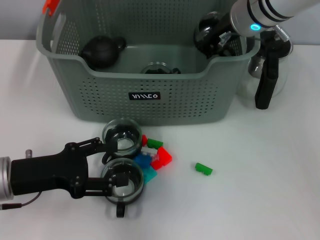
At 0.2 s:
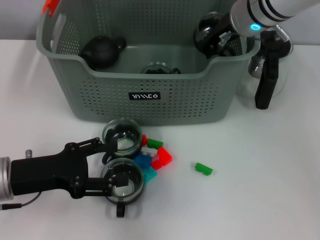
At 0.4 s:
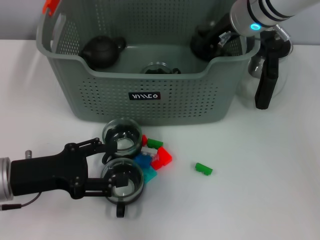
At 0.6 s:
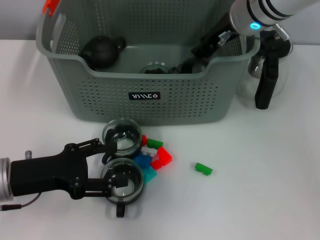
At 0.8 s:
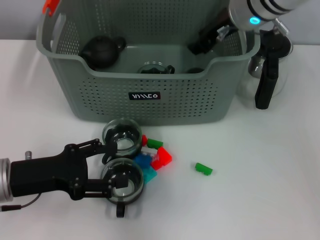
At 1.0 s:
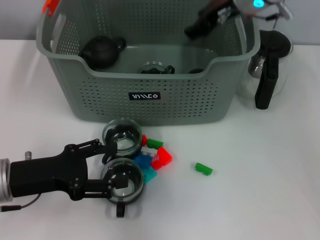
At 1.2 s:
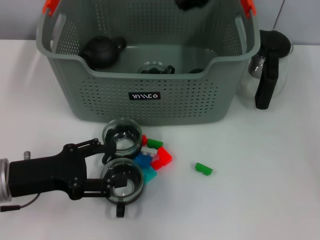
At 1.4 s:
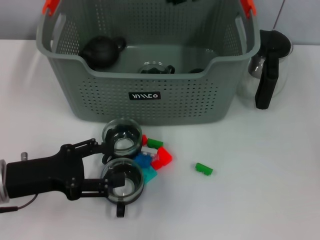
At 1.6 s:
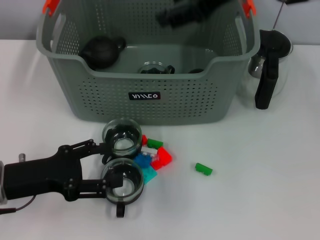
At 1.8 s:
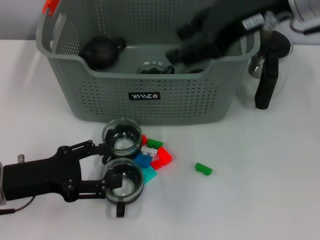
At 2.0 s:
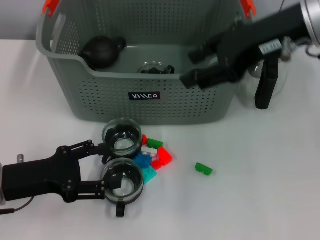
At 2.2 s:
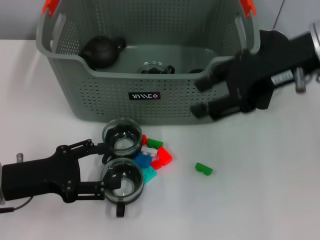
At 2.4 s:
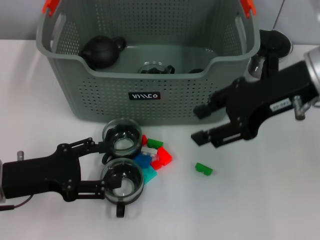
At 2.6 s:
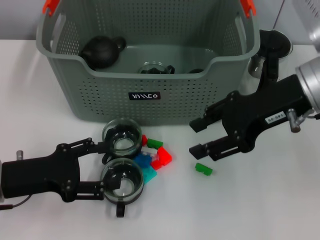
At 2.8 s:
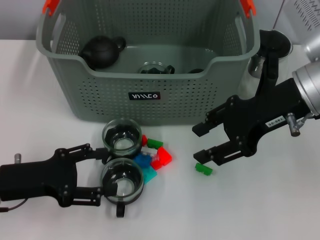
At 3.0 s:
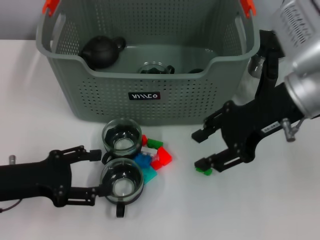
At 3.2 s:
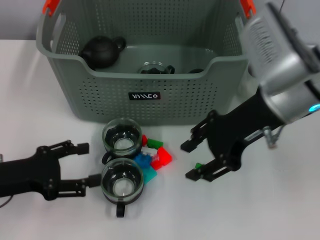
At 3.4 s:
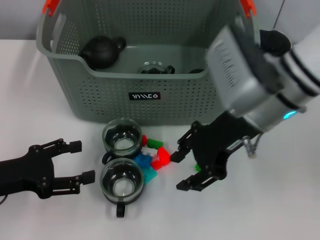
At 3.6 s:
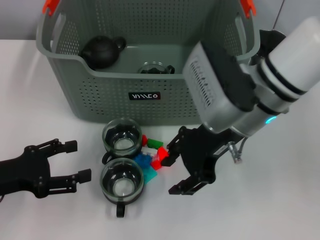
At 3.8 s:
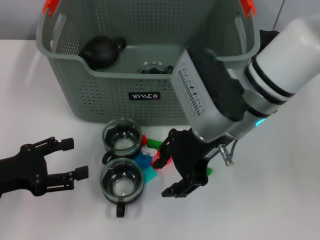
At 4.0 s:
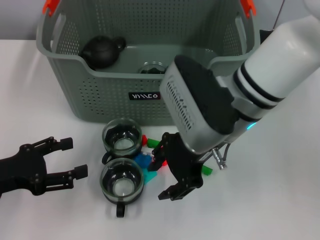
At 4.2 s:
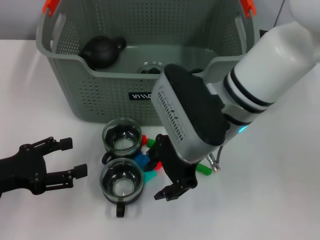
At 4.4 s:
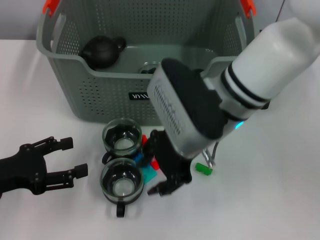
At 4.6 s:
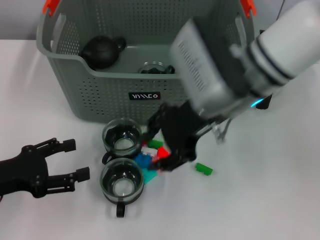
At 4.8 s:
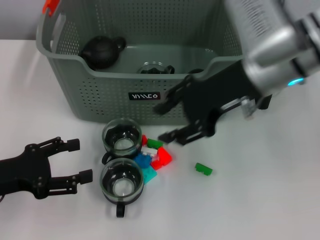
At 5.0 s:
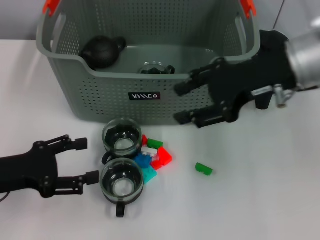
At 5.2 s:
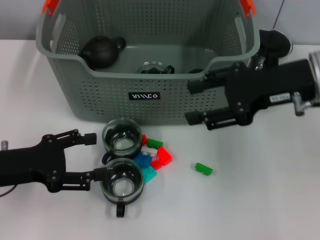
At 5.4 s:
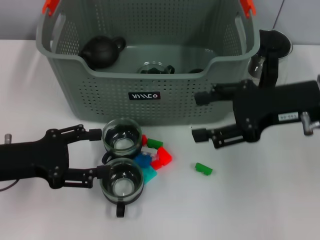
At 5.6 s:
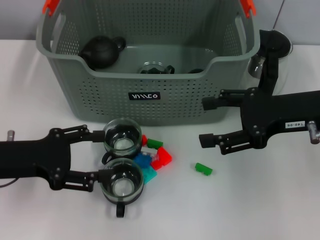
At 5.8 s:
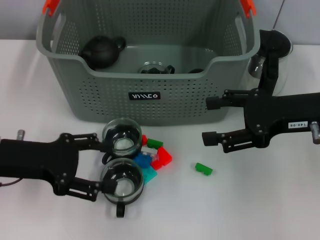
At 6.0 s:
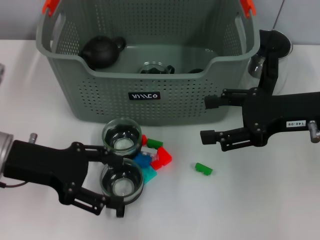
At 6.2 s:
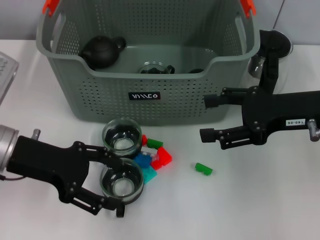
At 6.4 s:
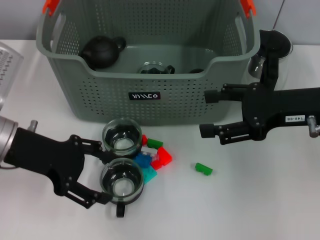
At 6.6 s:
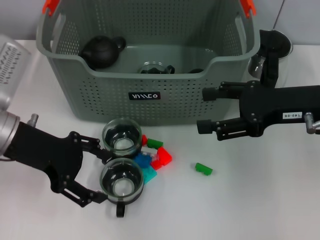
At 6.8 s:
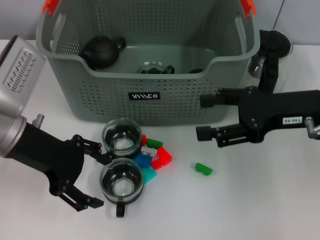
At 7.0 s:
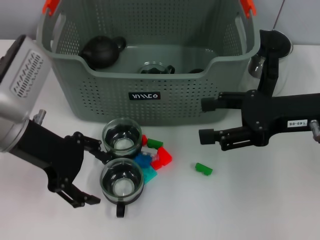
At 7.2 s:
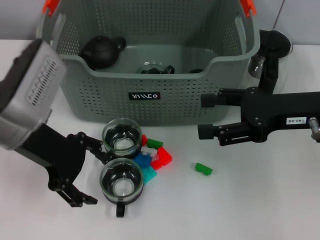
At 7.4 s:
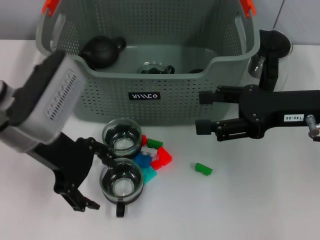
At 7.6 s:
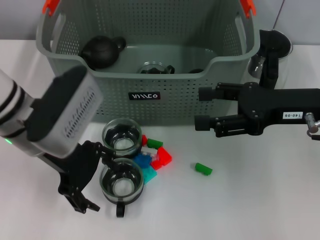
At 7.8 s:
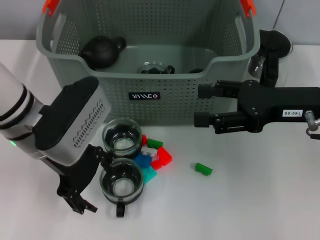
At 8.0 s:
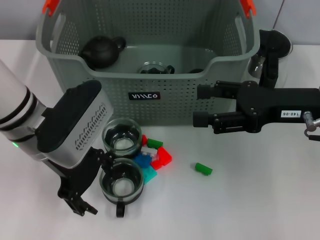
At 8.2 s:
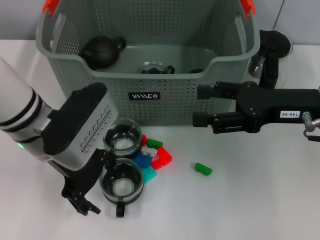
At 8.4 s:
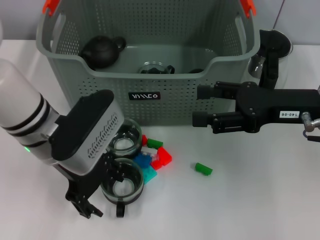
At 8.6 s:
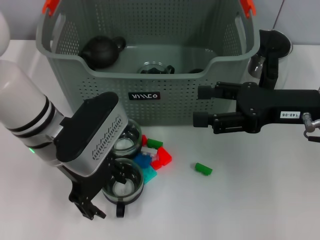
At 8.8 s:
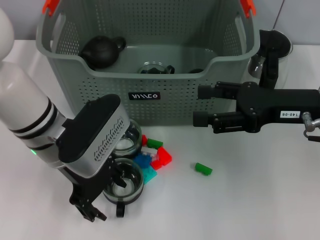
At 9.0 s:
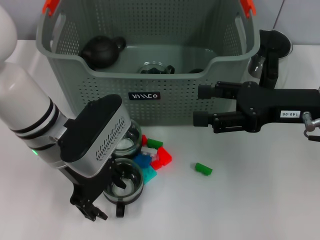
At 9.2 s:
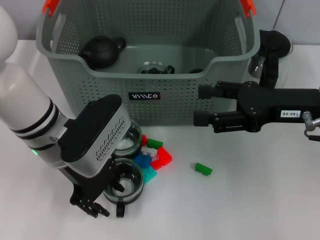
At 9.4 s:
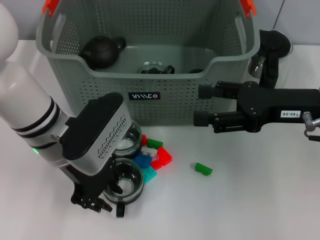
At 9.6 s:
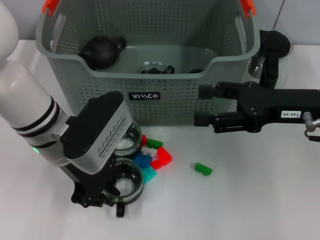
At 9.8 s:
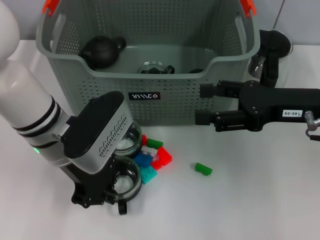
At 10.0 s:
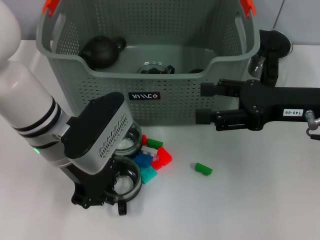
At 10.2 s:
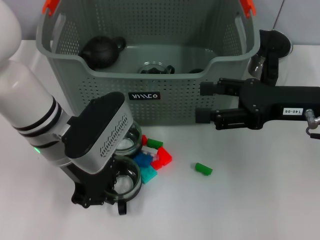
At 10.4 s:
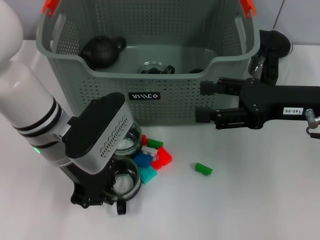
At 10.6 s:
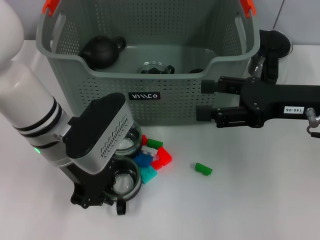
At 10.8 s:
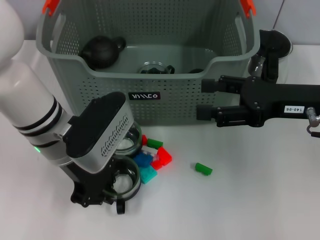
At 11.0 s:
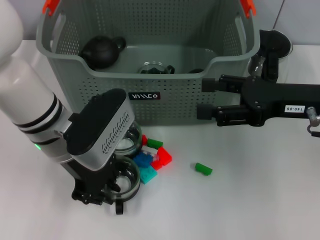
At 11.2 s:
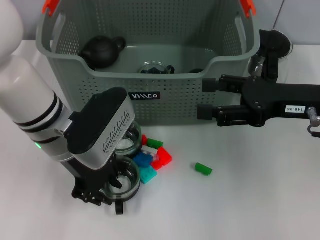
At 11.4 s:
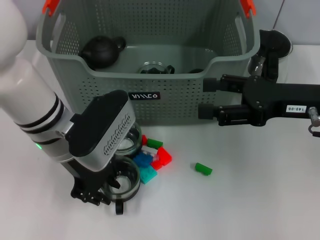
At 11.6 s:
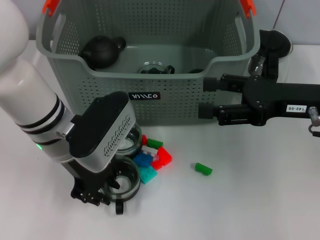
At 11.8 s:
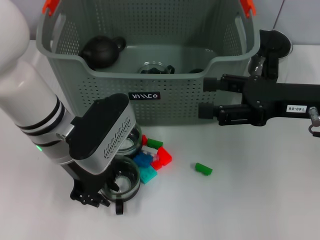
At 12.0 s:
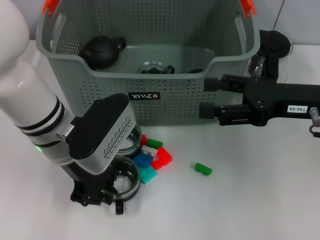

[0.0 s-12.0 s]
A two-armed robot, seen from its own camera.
Task of the whole recording: pick up the teacup on the table and place it into the storage bin, pick up the block on the table and place it into the storage bin.
0.0 to 1.6 s: The right gripper shifts about 15 cm upward and backward, and opens its fingers.
1.6 to 3.0 s: The right gripper heads downward, covering some 10 cm.
3.0 to 4.4 s: The right gripper goes roughly 10 cm to the left.
4.4 to 6.0 s: The left gripper shifts roughly 10 cm to the right, forward and upward. Meanwhile the right gripper is displaced to the right by some 20 cm, and opens its fingers.
6.0 to 7.6 s: The left gripper is displaced to the right by some 5 cm.
7.6 to 9.0 s: There are only small adjustments of the grippers.
9.0 to 10.4 s: The left gripper closes up.
10.4 to 12.0 s: Both grippers stay about where they are.

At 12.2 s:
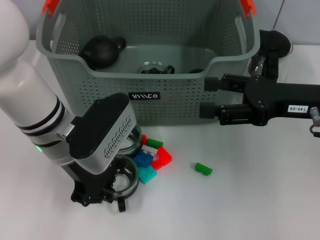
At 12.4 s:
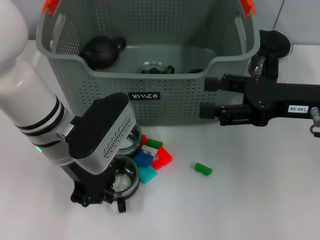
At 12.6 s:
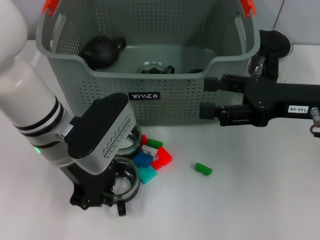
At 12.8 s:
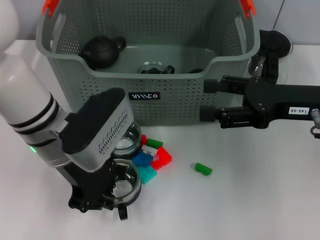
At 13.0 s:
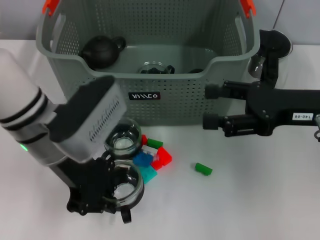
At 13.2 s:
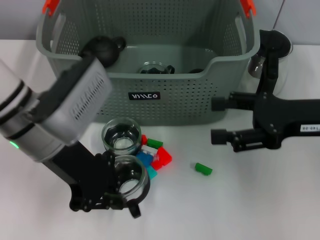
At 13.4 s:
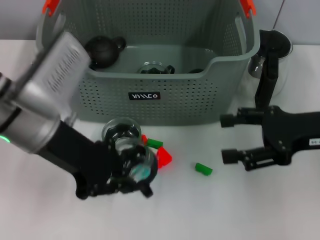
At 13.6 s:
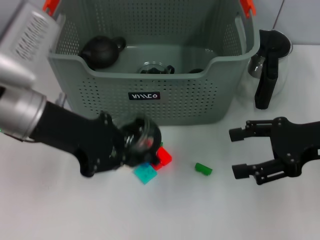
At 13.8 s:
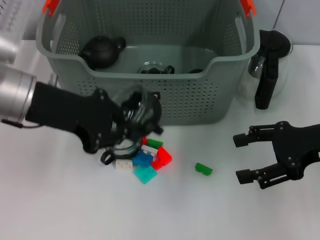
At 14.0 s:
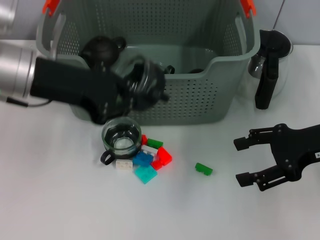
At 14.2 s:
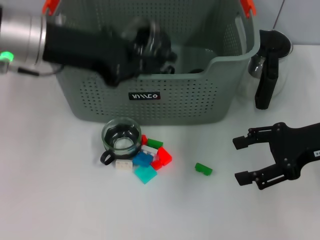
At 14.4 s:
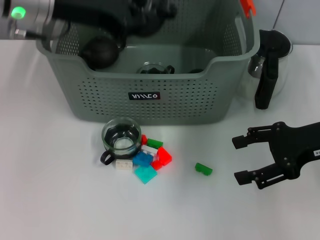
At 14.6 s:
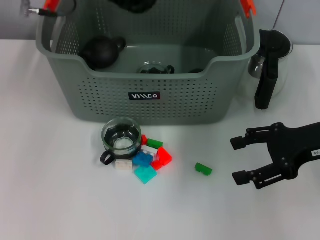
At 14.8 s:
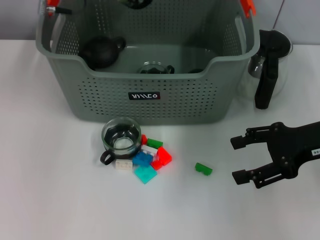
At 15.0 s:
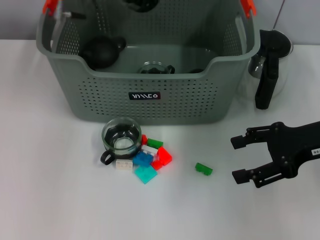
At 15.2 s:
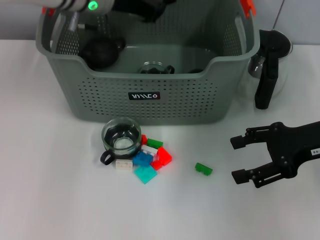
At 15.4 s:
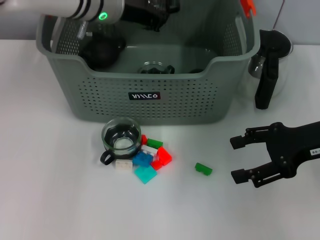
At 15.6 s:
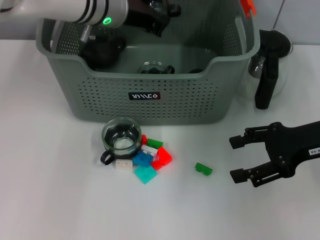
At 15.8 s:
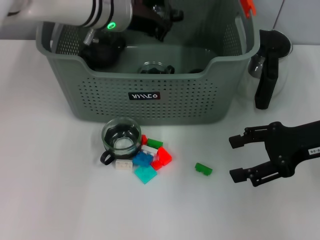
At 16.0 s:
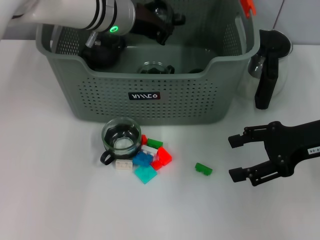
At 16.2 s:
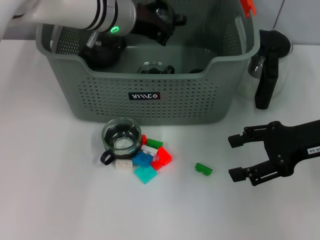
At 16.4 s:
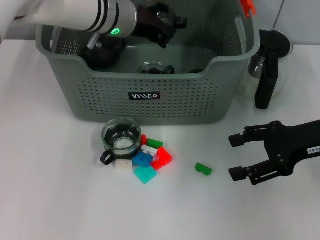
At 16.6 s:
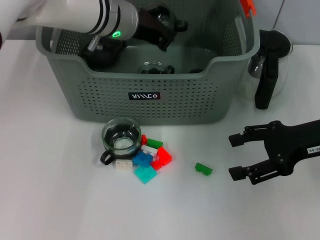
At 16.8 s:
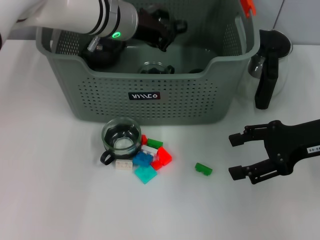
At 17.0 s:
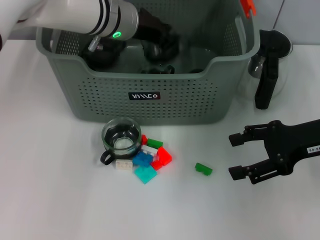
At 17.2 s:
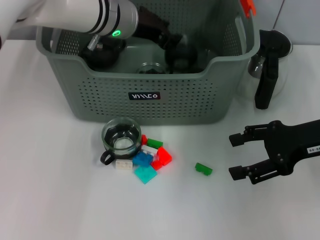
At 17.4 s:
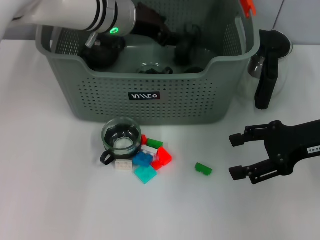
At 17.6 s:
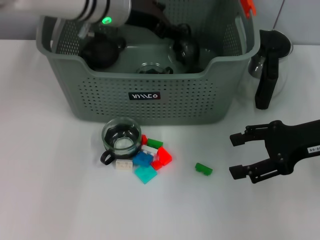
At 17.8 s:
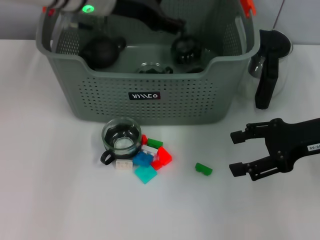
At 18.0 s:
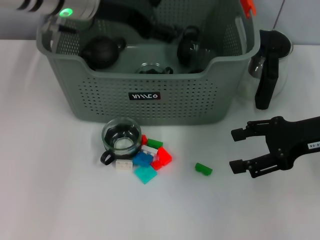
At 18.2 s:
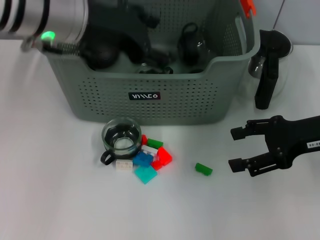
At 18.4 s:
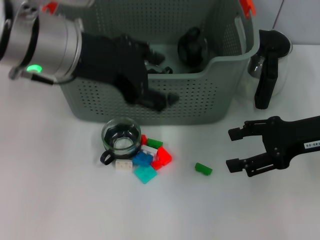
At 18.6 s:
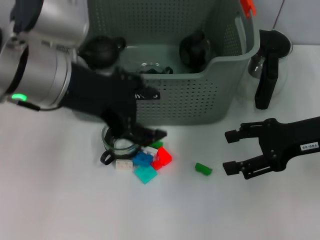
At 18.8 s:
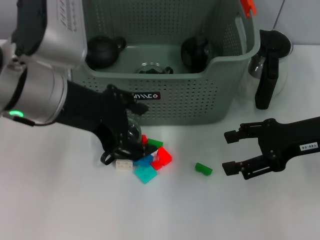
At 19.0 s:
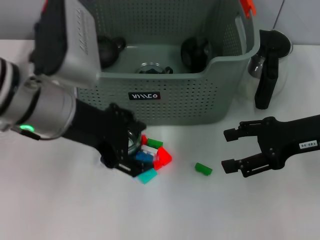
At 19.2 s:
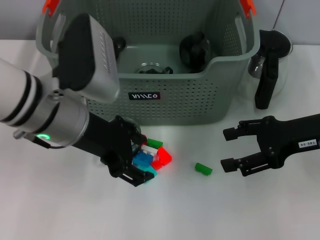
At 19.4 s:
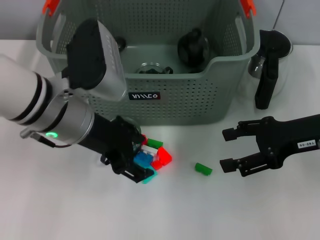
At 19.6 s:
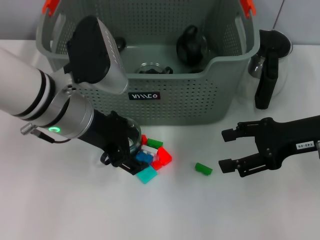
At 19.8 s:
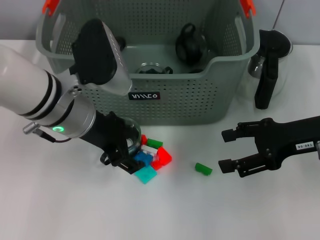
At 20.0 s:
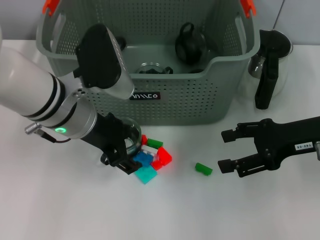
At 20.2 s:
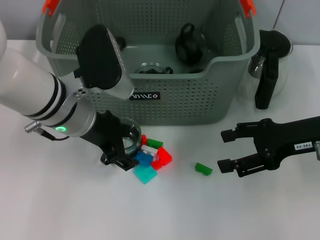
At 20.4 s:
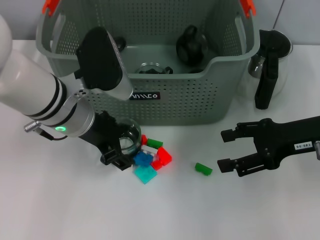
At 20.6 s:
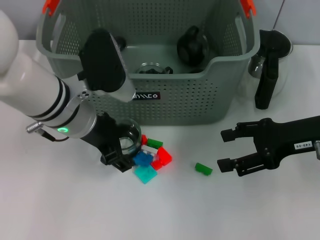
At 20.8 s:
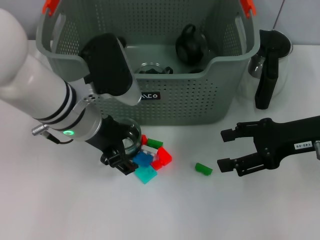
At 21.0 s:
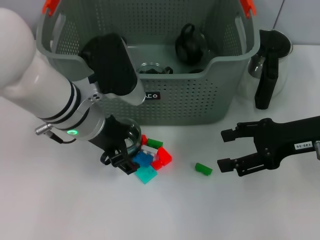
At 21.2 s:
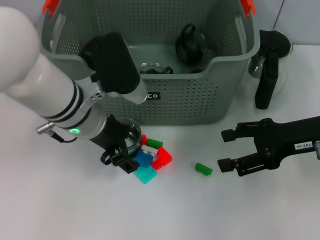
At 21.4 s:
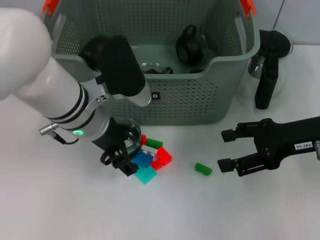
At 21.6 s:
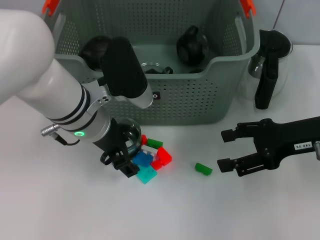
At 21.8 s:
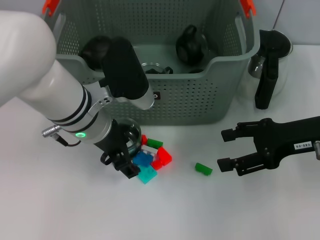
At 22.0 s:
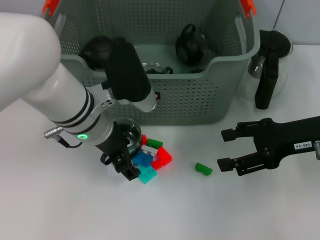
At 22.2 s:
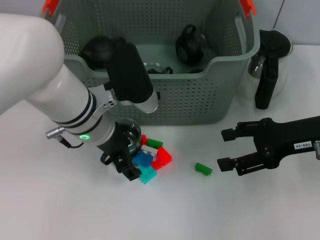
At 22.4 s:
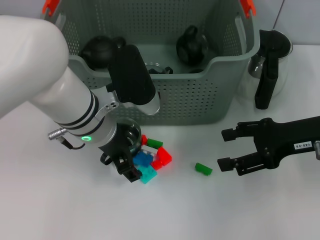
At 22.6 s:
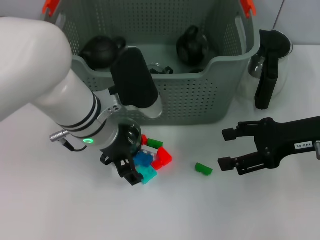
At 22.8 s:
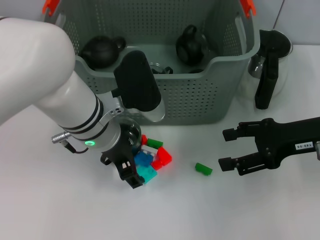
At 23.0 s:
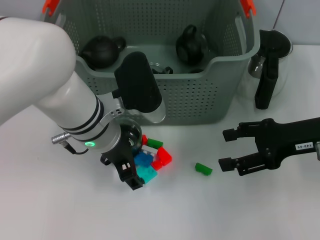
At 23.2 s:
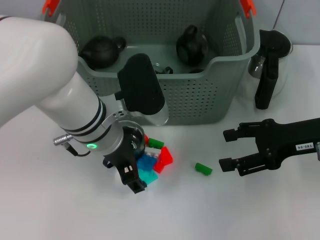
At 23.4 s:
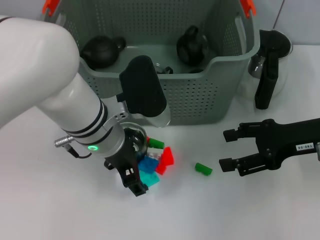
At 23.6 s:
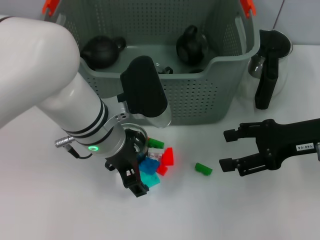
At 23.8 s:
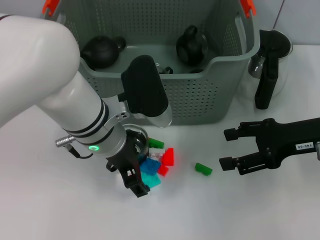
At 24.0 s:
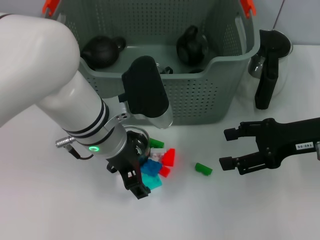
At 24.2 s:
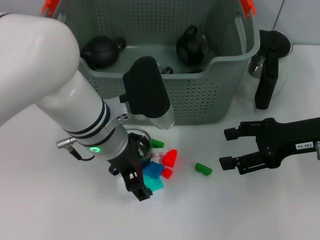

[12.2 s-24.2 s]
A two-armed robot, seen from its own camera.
Task of the whole recording: pick up the teacup on the table and place it into the storage bin, pick up the block on the table and place it into the storage bin.
Step, 12.8 to 17.2 s: Place the cup in the storage box with left gripper.
12.2 to 13.8 s: The left gripper travels upward and to the left by approximately 10 cm.
13.8 to 15.2 s: The left gripper travels forward and to the right by about 15 cm.
15.2 to 16.6 s: The grippers make only small movements.
16.6 to 18.2 s: The left gripper moves backward and upward, approximately 15 cm, and opens its fingers.
18.2 to 19.8 s: The left gripper goes some 10 cm downward.
19.8 to 24.2 s: The grippers move only a little.
